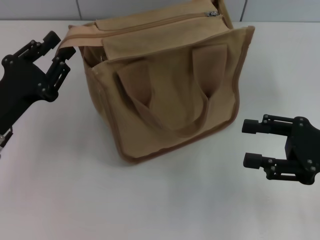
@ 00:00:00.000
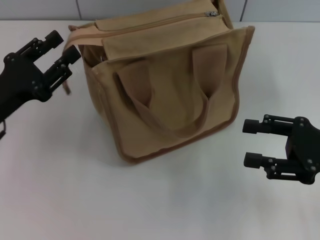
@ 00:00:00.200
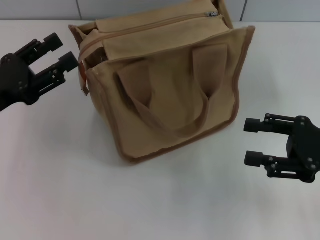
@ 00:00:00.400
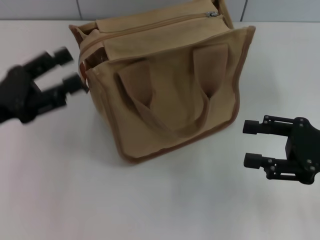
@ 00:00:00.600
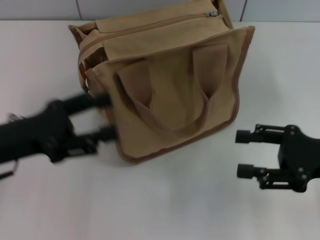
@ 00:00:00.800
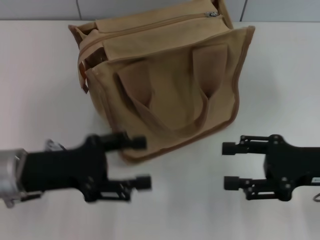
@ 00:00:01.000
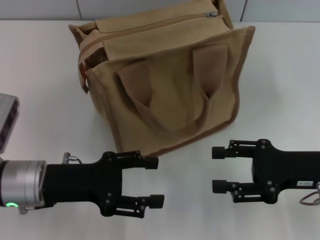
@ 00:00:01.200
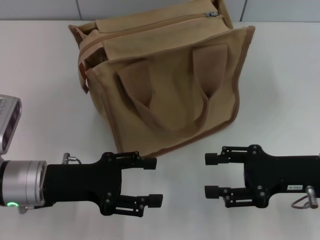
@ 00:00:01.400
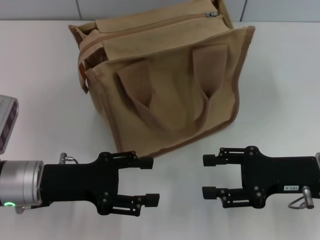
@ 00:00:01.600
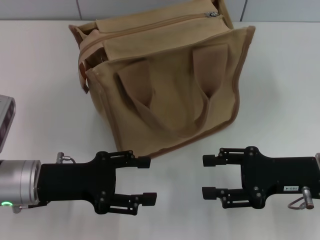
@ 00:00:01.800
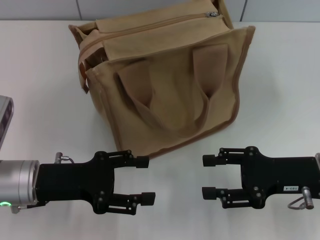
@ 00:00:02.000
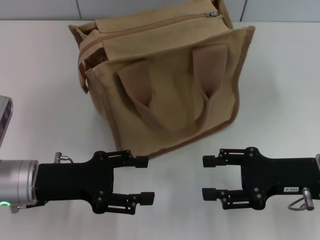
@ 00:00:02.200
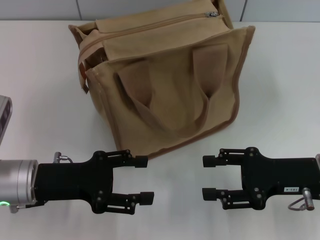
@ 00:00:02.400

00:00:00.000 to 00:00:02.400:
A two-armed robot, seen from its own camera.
00:00:00.000 to 00:00:01.200: The left gripper ends up some 5 cm from where it was, and opens up.
00:00:01.200 to 00:00:02.400: There are only small adjustments of the grippers.
